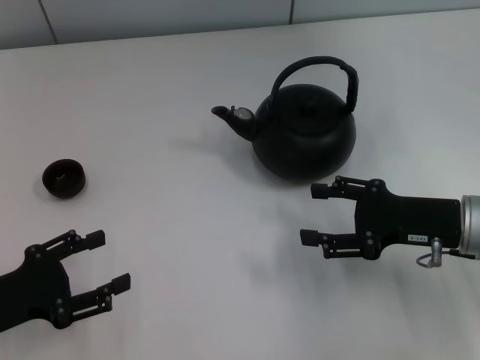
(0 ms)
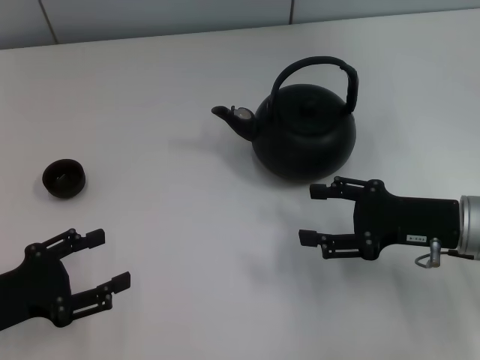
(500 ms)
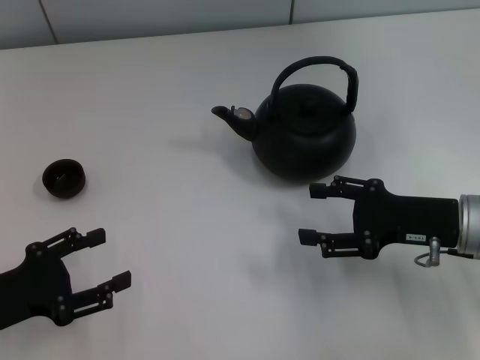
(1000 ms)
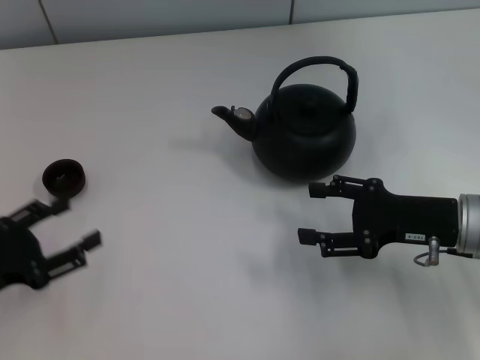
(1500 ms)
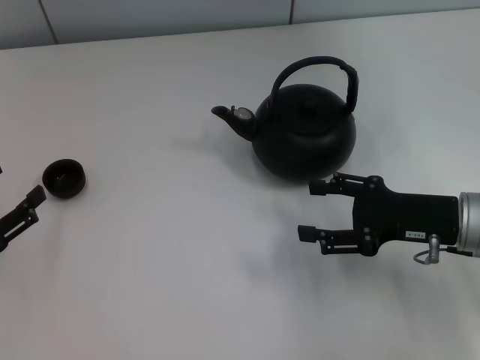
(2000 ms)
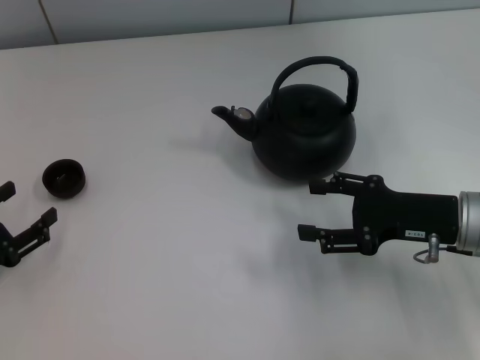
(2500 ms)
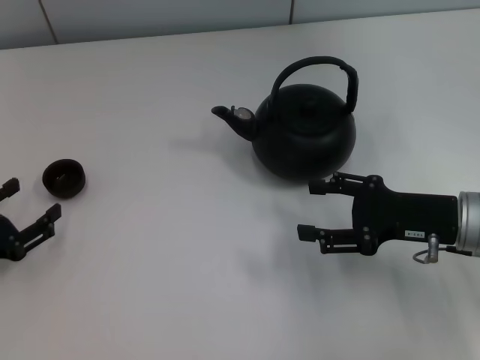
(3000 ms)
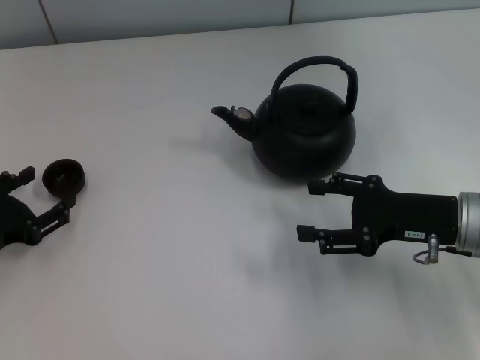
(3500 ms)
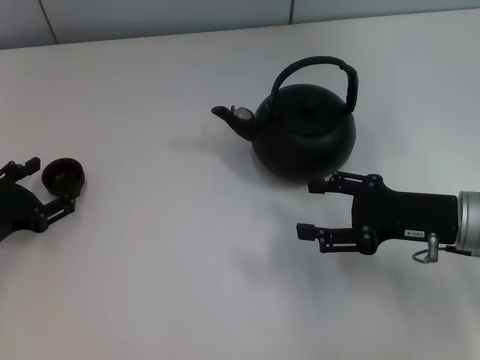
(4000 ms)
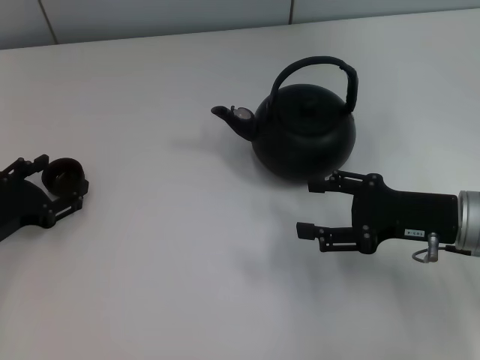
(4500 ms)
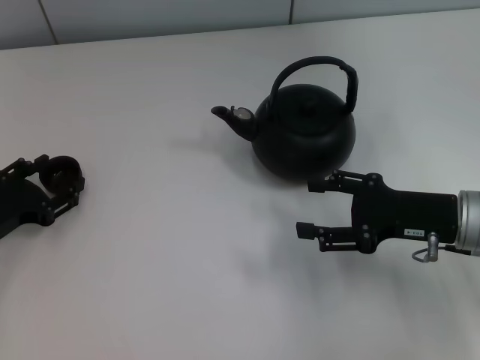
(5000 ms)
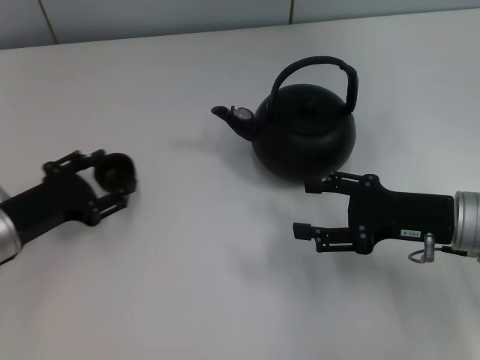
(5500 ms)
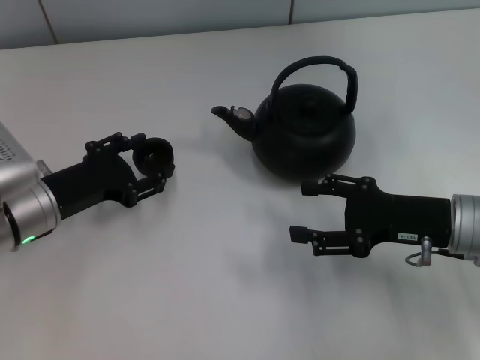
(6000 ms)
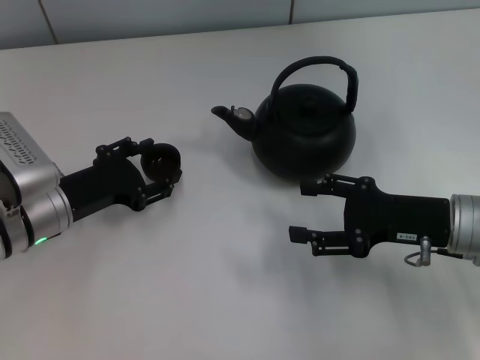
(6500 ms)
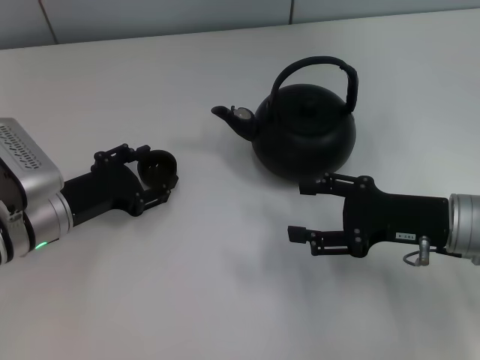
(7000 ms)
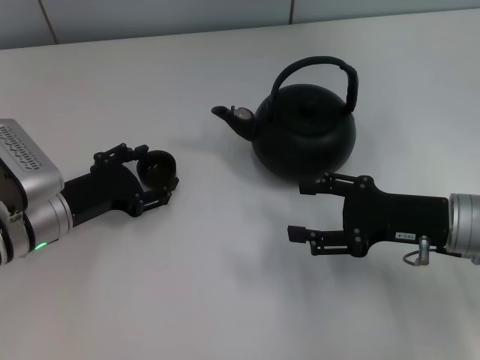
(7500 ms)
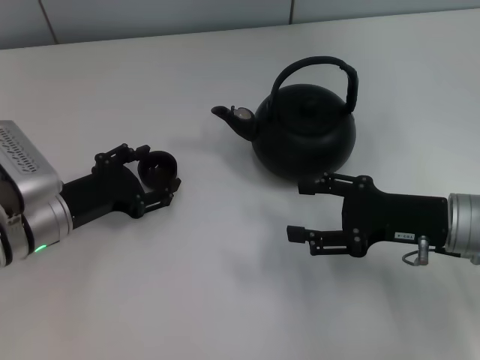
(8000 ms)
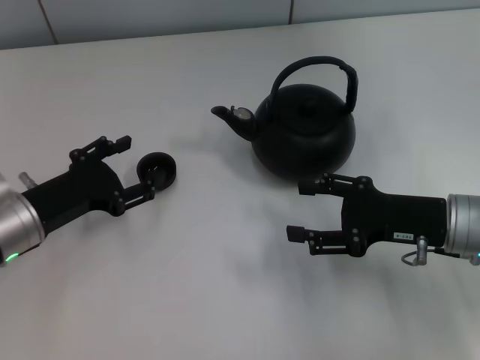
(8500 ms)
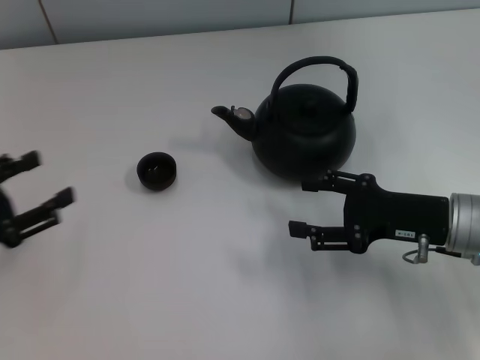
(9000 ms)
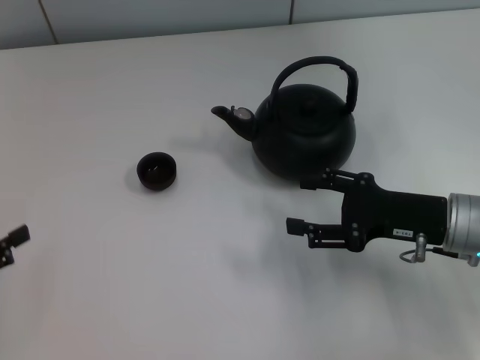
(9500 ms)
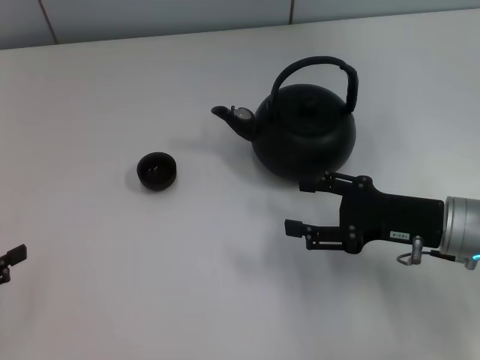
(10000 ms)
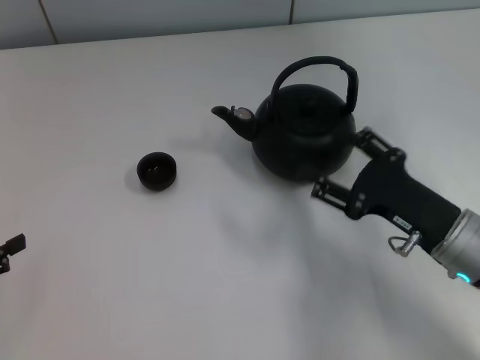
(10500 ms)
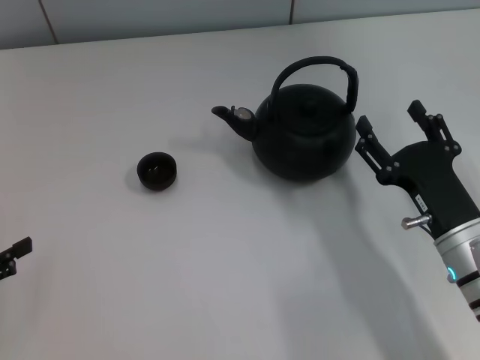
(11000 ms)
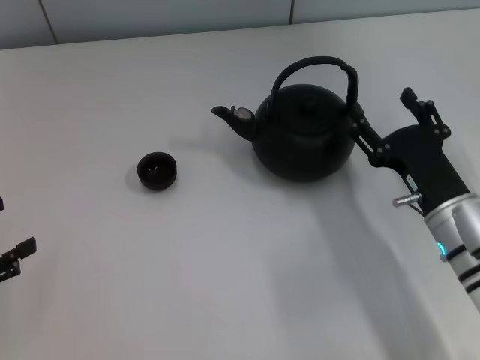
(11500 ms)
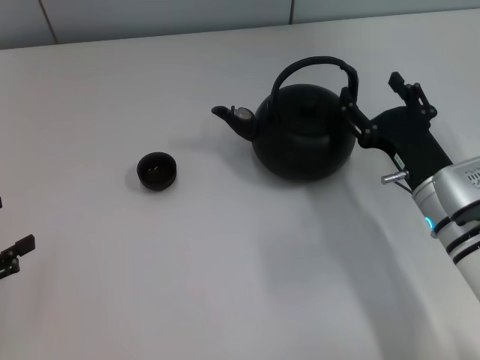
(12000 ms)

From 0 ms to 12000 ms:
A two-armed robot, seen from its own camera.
Task of the whole recording: Grasp the handle of the teapot with one hand and pour tea into the teacup.
Step, from 0 ms to 5500 ms: Pick up the teacup with the left gripper.
Step, from 6000 ms to 8500 ms: Place the teacup in the center of view with the left gripper.
From 2000 ms to 4000 ms: The left gripper shifts about 5 cm forward.
From 4000 ms to 6000 ms: The left gripper heads to the right, covering about 10 cm, and closes.
From 6000 ms to 8000 ms: The left gripper opens up.
From 8000 ms to 10000 ms: The left gripper moves to the left and backward, about 20 cm.

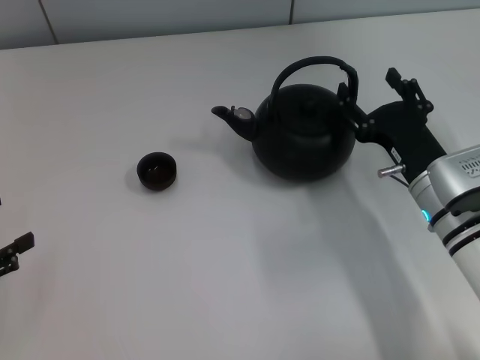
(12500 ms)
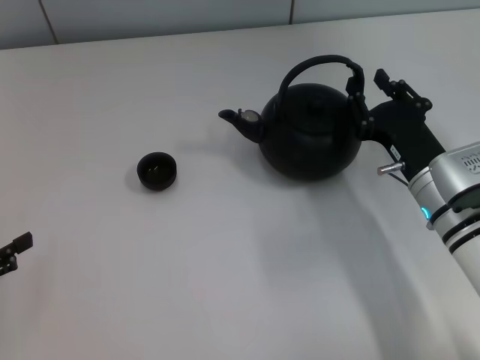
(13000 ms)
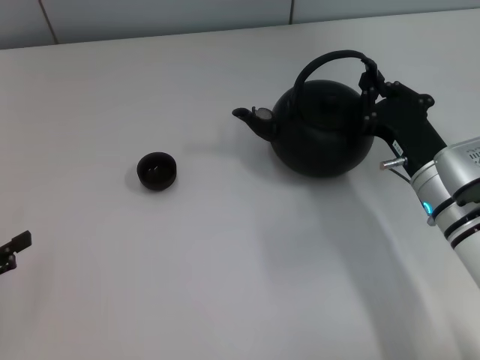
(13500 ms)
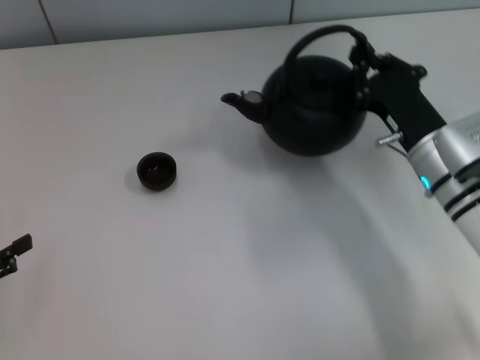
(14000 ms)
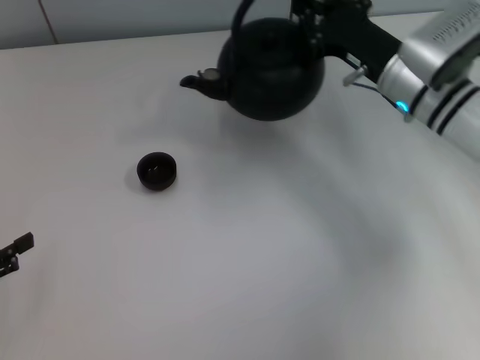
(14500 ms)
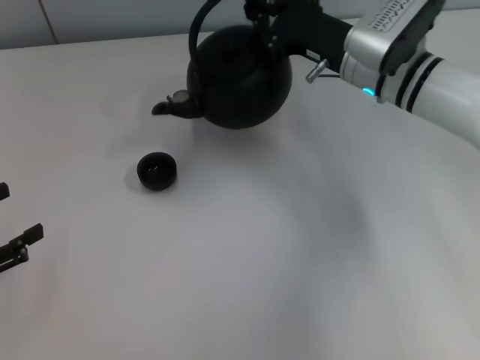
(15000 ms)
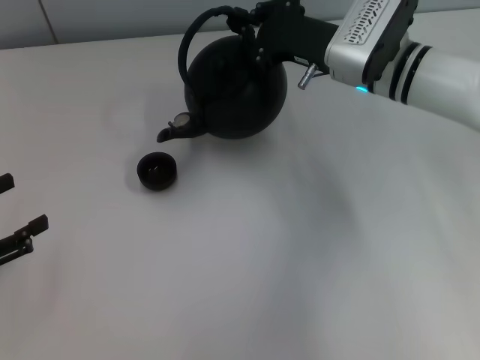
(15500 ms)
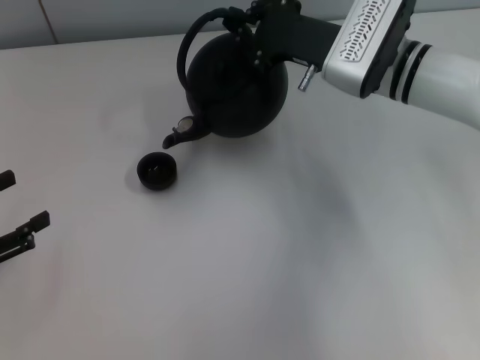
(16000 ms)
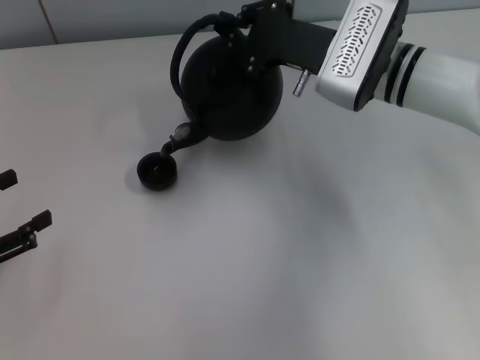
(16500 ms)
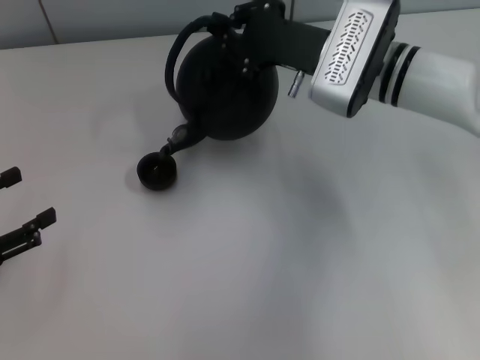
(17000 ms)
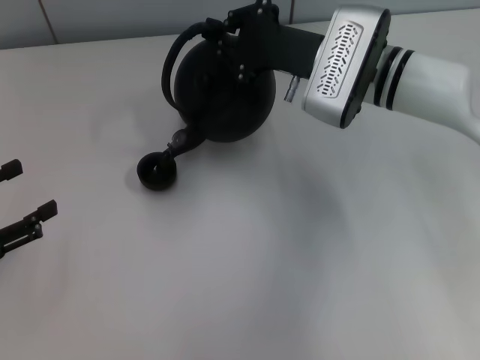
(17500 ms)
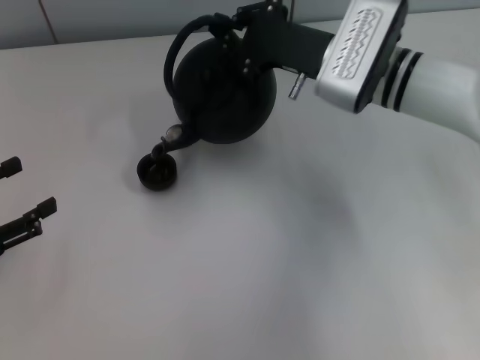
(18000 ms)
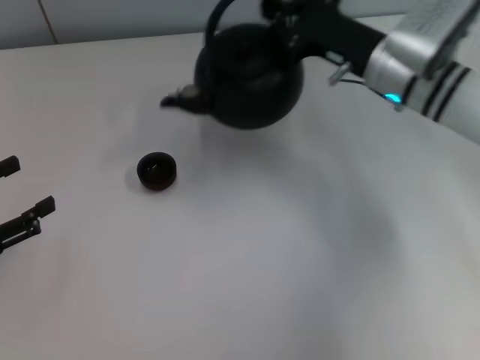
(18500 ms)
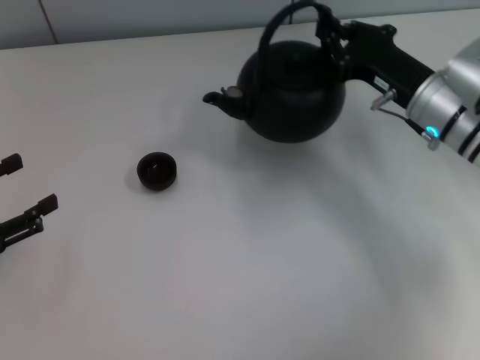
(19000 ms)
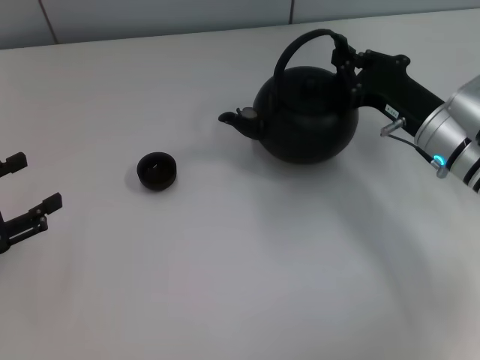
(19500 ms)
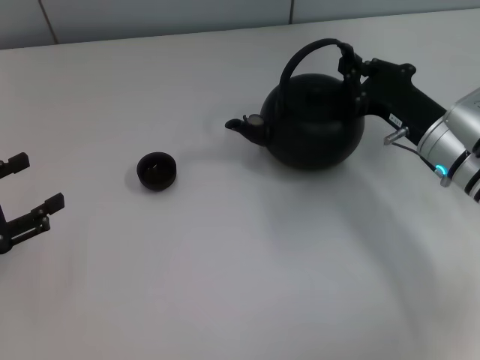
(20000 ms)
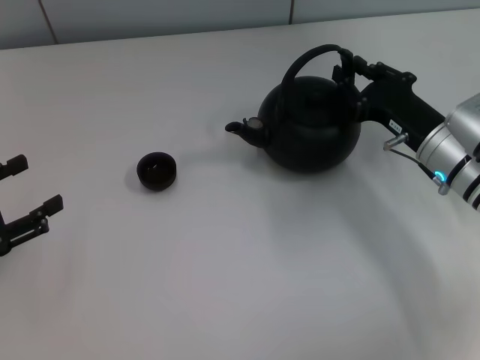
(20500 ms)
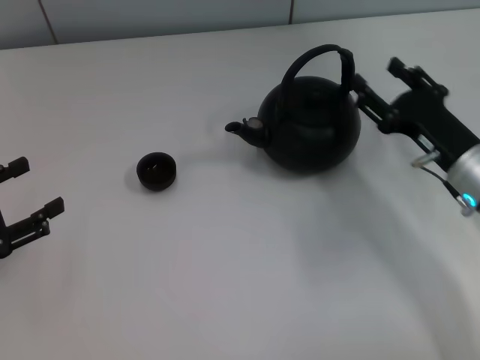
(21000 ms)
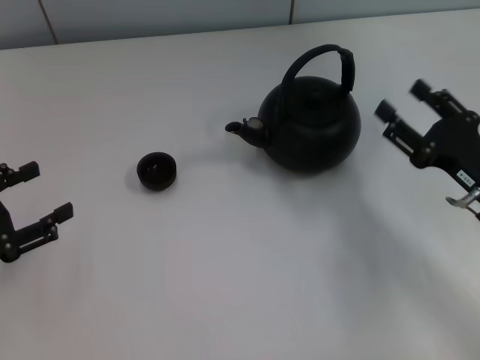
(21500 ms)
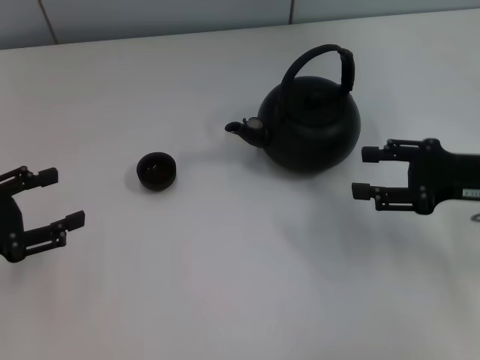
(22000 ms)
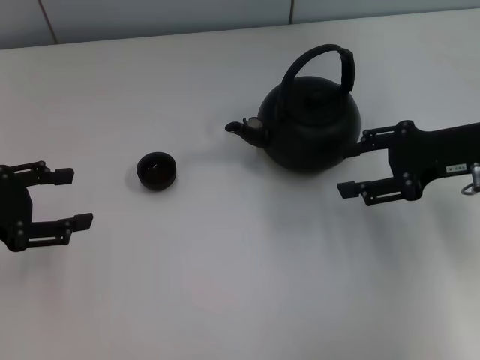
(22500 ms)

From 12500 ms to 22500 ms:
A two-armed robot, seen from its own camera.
Task of the whole recording: Grasp the handle of the teapot with one hand and pour tea into the teacup.
Step, from 18500 ms to 20500 ms: Put down the teapot with the right gripper.
From 12500 ms to 14500 ms: The right gripper travels forward and upward by roughly 15 cm, and closes.
From 14500 ms to 16500 ms: The right gripper moves approximately 5 cm.
From 18500 ms to 20500 ms: The right gripper travels backward and downward by some 10 cm.
From 20500 ms to 22500 ms: The left gripper heads forward, covering some 5 cm. The right gripper heads upward and to the right, covering about 10 cm, and opens.

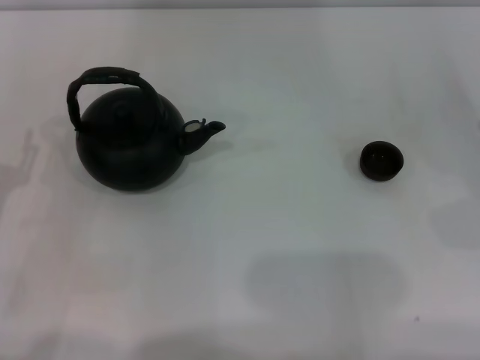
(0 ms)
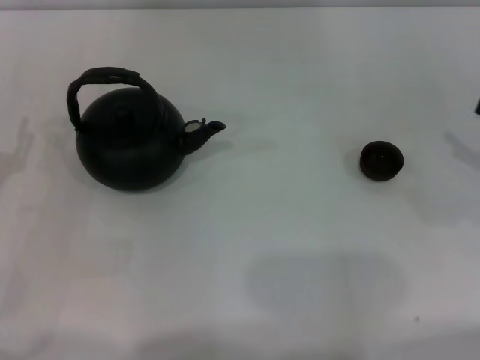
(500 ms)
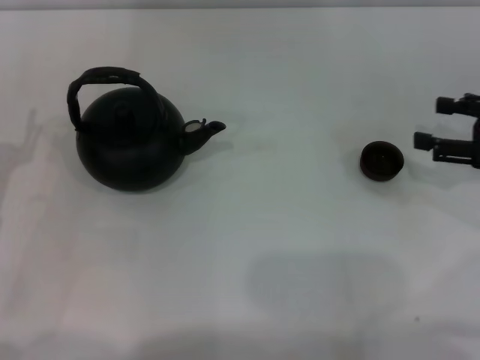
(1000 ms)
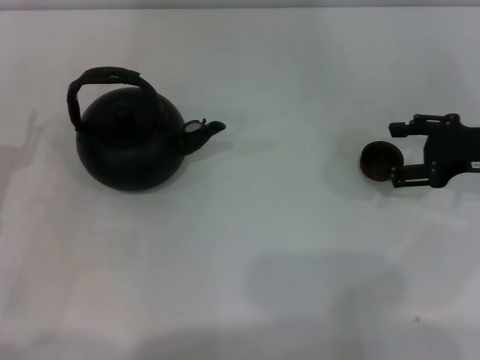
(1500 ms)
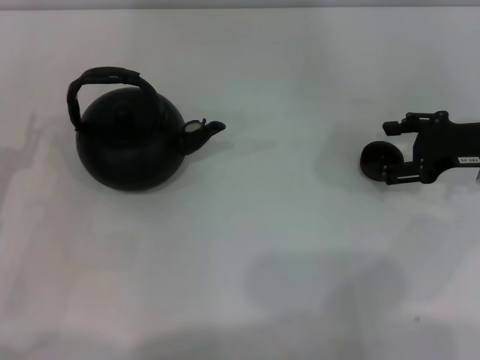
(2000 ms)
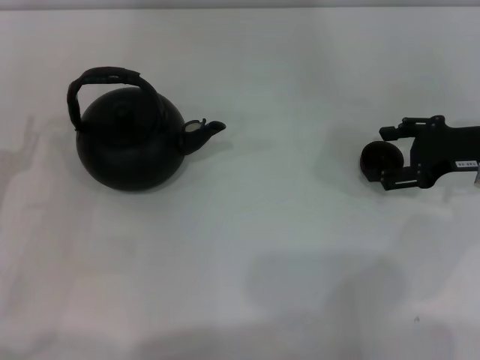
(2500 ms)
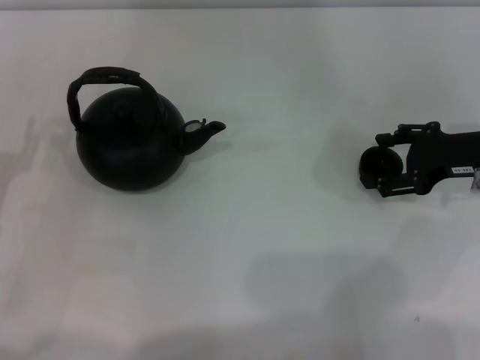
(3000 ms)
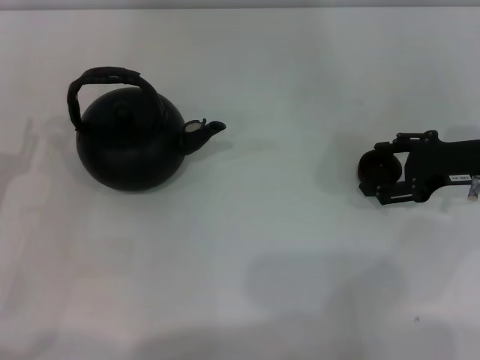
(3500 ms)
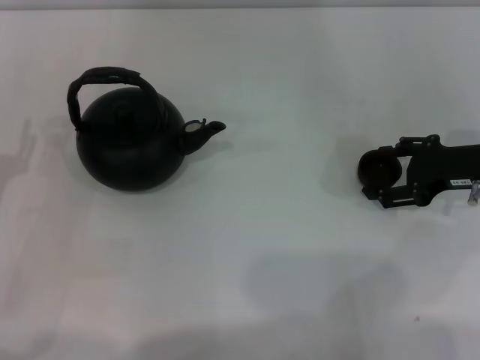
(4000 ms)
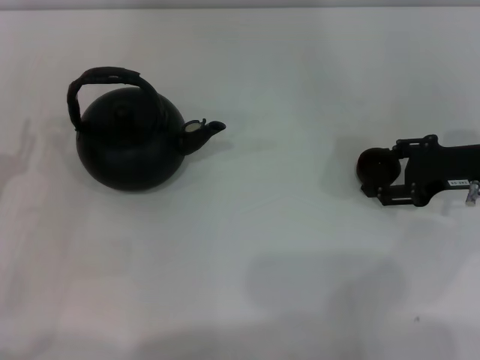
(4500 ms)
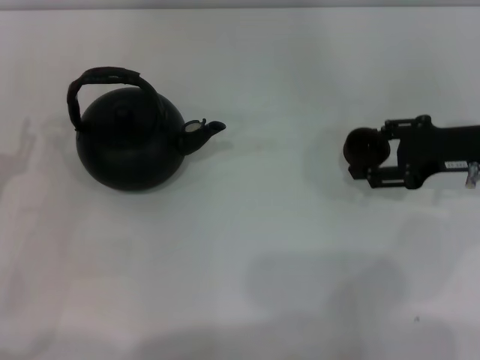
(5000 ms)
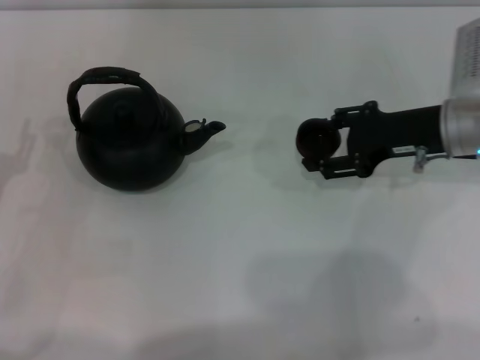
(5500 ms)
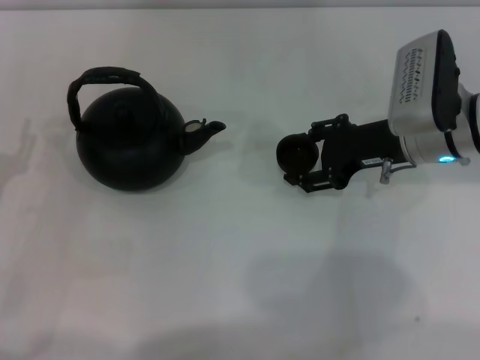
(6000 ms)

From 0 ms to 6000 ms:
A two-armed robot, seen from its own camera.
Task of the whole recording: Grasp the handle of the teapot with one hand and pour tea into the teacup.
Step, from 0 ms to 5000 ms: Pick up the teacup with the right gripper.
From 0 ms to 2000 ms: The right gripper goes about 15 cm forward and to the left.
From 2000 ms to 4000 ms: There are only small adjustments of the grippers.
From 4000 ms to 6000 ms: The right gripper moves to the left, some 10 cm, and closes its fingers.
